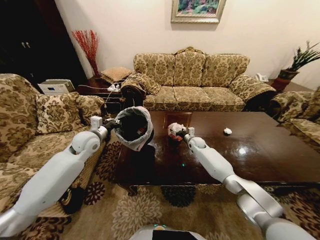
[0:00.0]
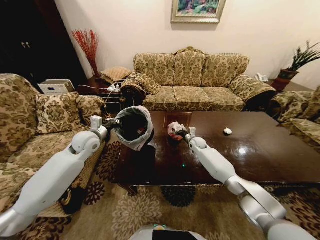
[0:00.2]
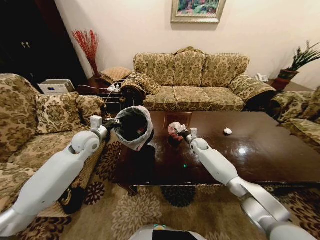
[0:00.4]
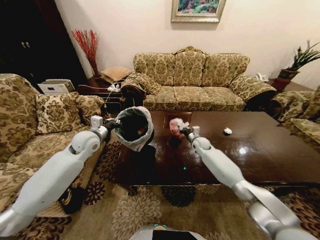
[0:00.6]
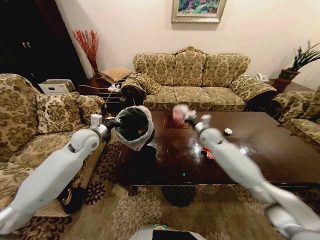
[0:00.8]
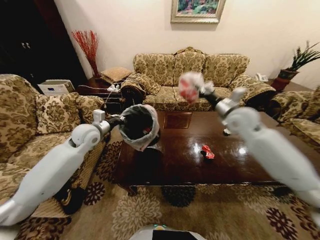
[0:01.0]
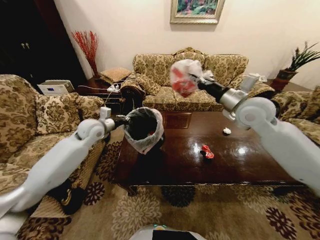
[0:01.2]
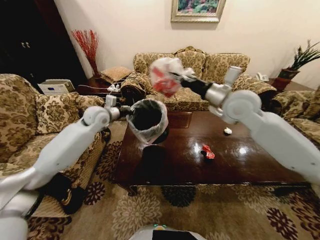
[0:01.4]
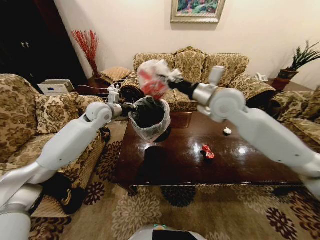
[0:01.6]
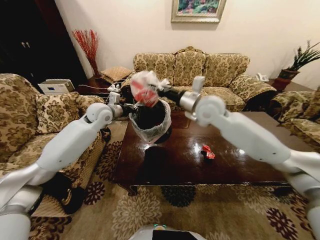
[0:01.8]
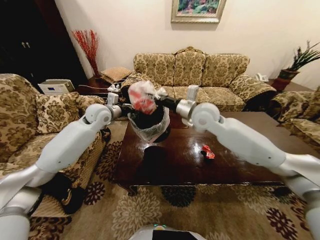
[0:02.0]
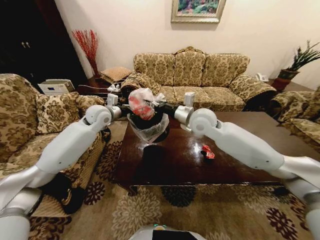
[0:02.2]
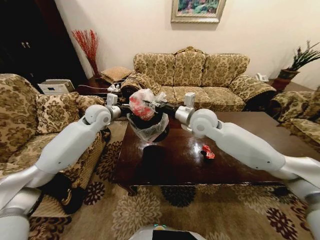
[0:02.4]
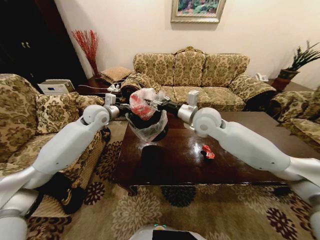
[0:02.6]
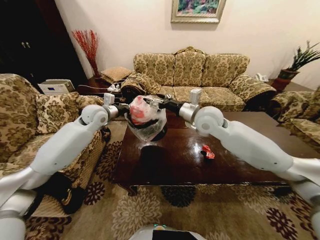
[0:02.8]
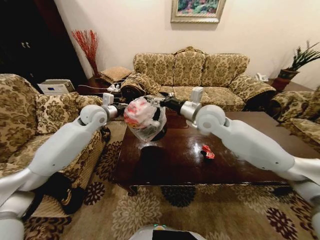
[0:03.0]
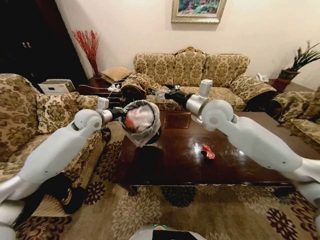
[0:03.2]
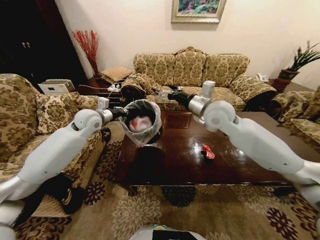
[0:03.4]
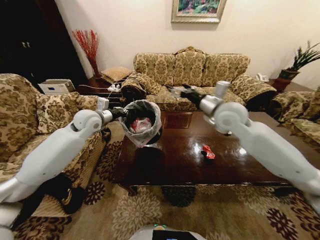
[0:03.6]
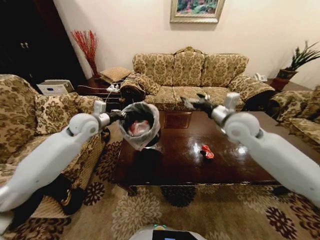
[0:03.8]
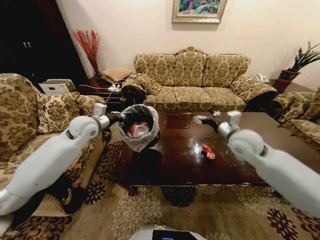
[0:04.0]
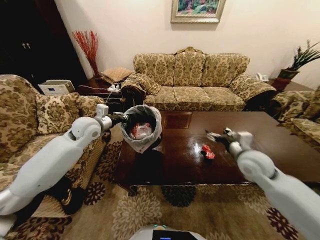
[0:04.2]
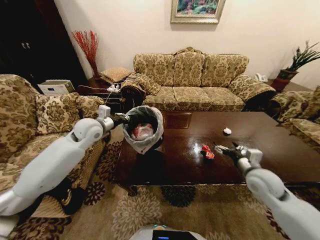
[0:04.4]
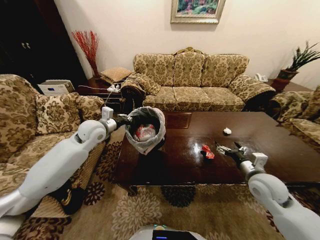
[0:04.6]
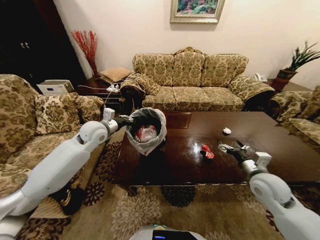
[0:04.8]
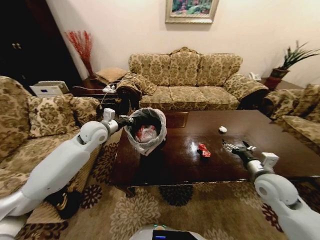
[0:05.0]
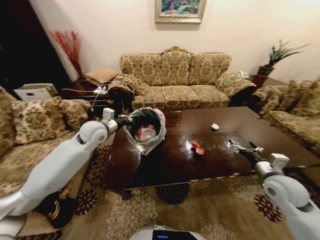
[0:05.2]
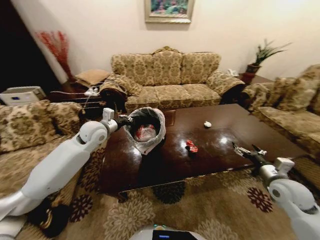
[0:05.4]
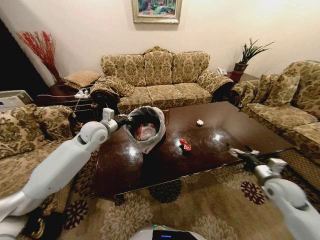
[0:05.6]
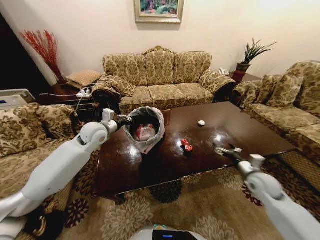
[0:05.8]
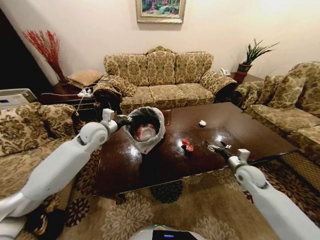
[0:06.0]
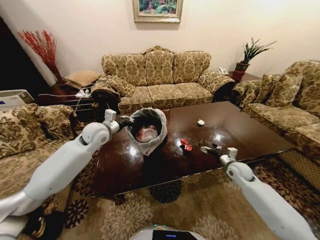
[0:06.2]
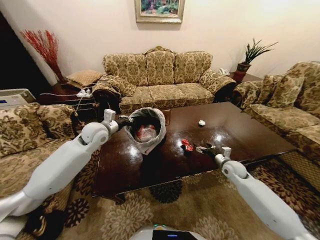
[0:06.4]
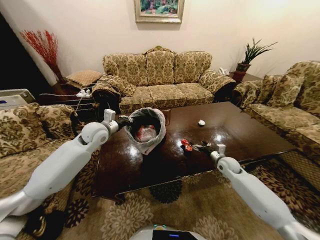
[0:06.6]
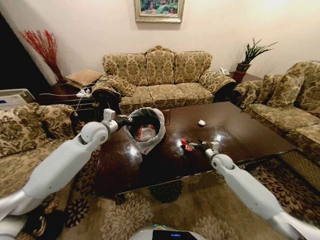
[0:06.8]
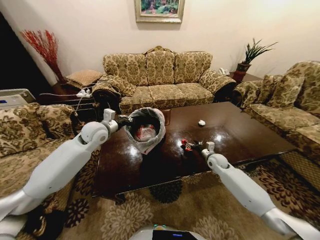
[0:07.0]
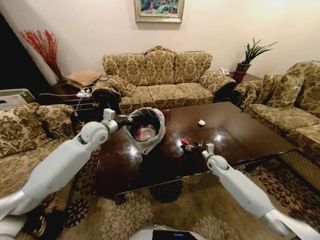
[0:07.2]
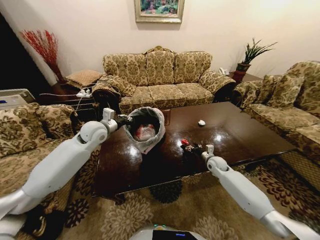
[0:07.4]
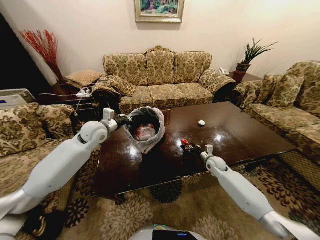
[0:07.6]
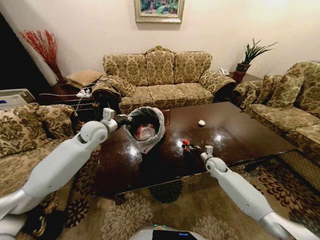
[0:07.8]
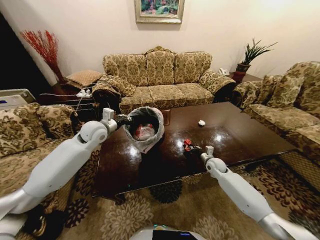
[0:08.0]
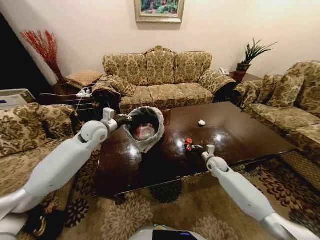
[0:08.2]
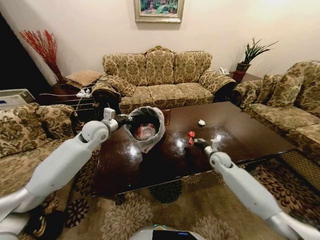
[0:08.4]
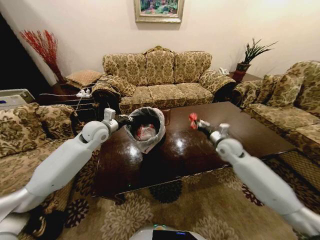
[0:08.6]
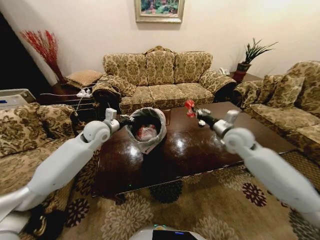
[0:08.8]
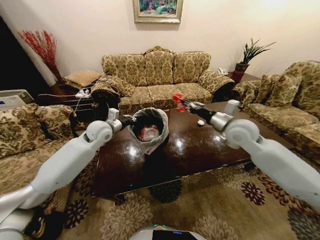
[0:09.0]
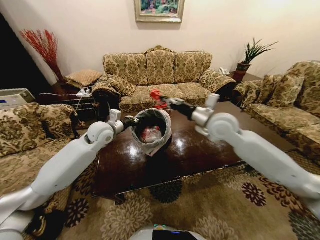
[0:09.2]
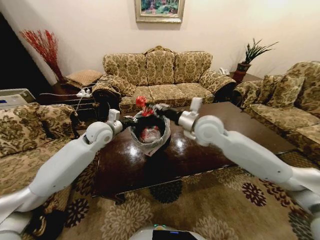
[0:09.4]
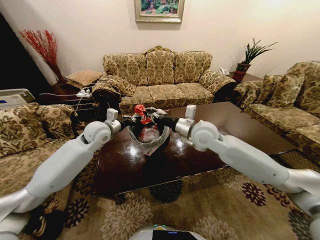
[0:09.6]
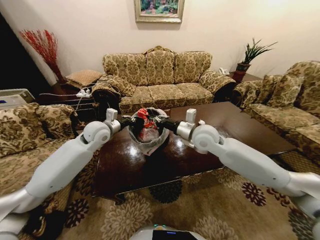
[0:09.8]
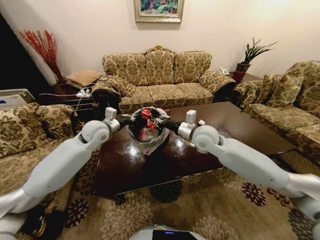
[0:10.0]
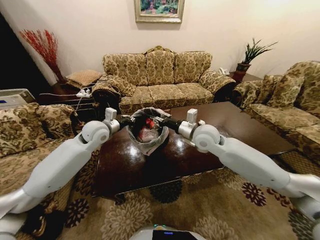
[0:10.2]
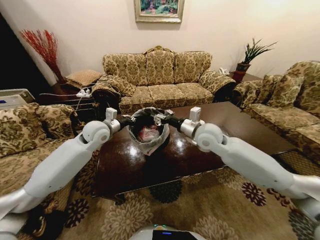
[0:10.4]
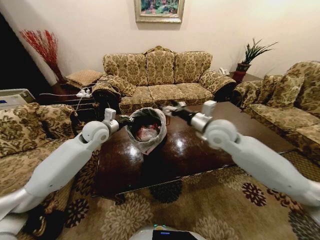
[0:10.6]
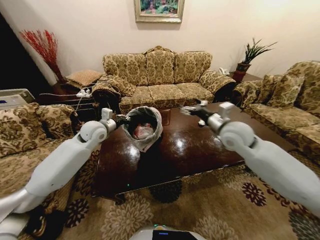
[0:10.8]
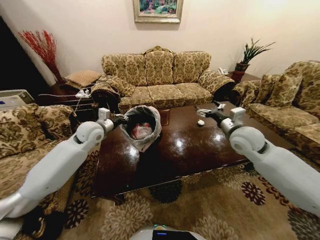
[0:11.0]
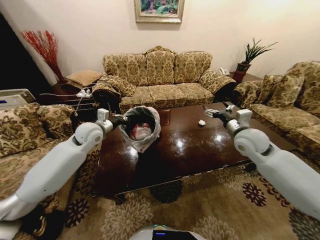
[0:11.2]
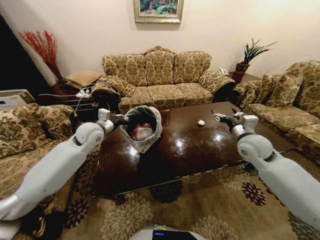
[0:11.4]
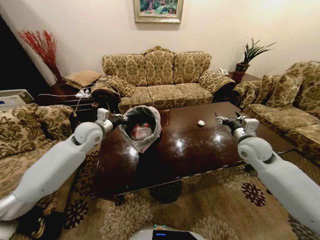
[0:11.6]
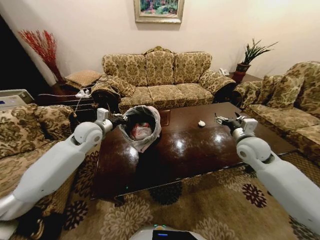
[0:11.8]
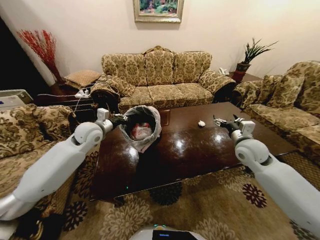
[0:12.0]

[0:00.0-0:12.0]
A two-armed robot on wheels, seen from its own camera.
Task of the whole recording: Move to the front of the table and place the trash on the table into the trash bin.
0:00.0 to 0:01.6: The left gripper travels upward and forward by about 15 cm, while the right gripper travels upward by approximately 35 cm, and closes its fingers.
0:01.6 to 0:03.0: The right gripper opens.
0:03.0 to 0:04.4: The right gripper shifts approximately 30 cm to the right, downward and backward. Meanwhile the left gripper moves backward, roughly 5 cm.
0:04.4 to 0:06.0: The right gripper travels downward and forward by roughly 10 cm.
0:06.0 to 0:07.6: The right gripper heads forward, to the left and downward, covering about 15 cm, and closes.
0:07.6 to 0:09.0: The right gripper moves upward, some 30 cm, and closes.
0:09.0 to 0:10.4: The right gripper is displaced to the left by about 10 cm, and opens its fingers.
0:10.4 to 0:12.0: The right gripper heads to the right, covering about 15 cm, and opens its fingers.

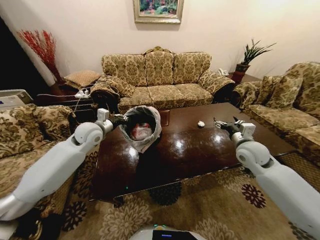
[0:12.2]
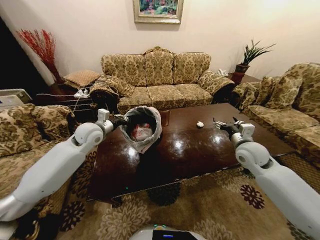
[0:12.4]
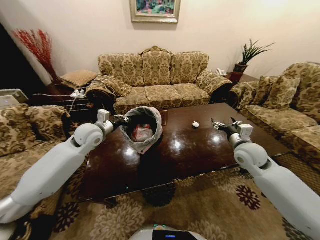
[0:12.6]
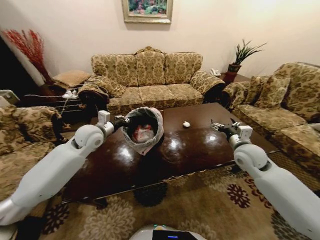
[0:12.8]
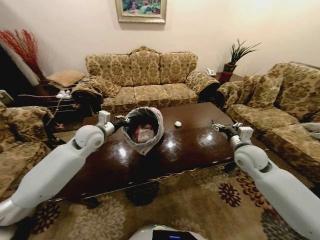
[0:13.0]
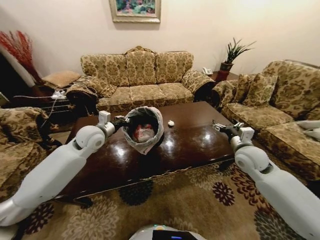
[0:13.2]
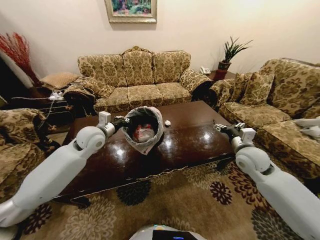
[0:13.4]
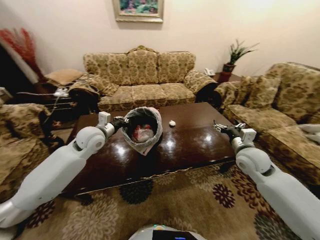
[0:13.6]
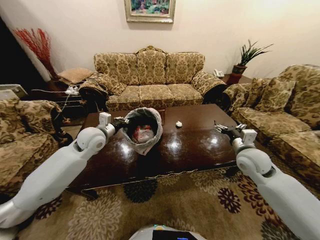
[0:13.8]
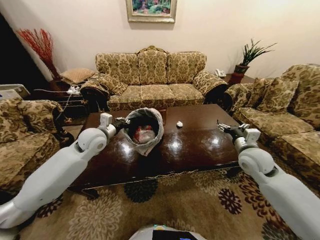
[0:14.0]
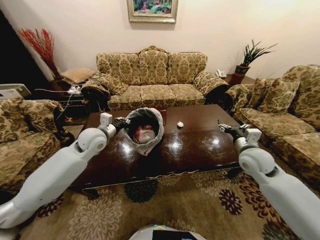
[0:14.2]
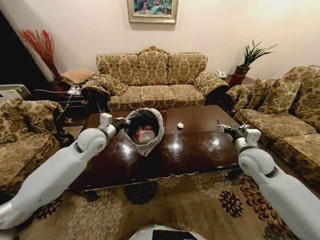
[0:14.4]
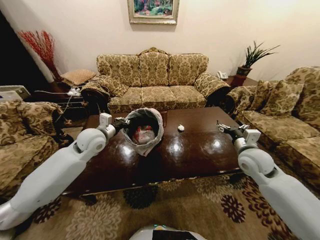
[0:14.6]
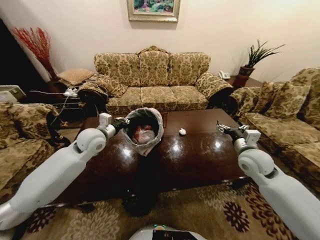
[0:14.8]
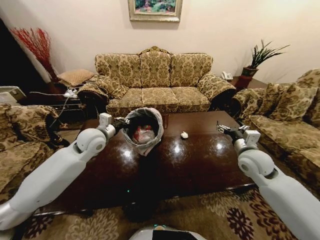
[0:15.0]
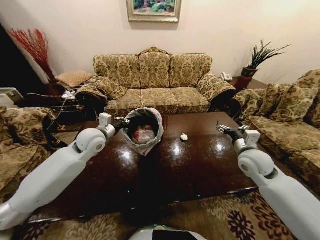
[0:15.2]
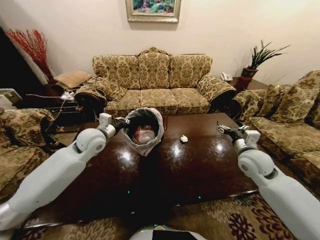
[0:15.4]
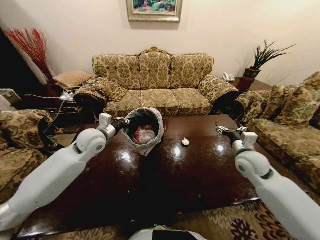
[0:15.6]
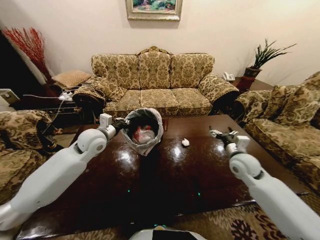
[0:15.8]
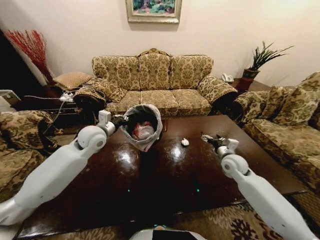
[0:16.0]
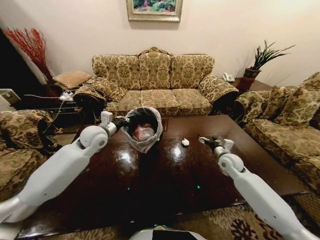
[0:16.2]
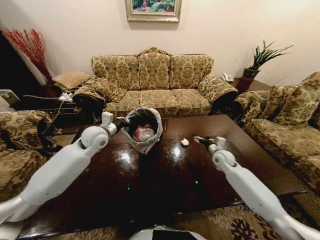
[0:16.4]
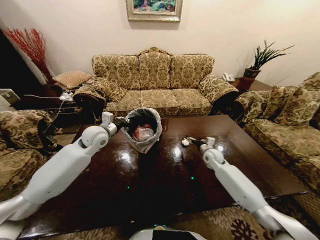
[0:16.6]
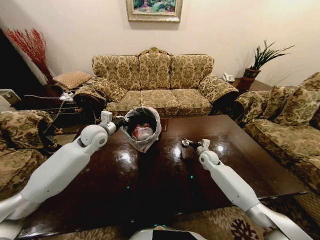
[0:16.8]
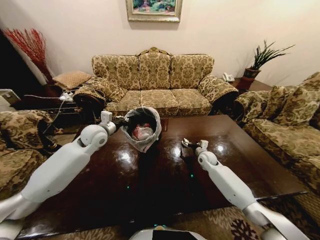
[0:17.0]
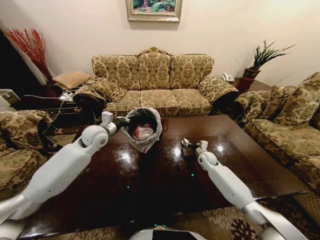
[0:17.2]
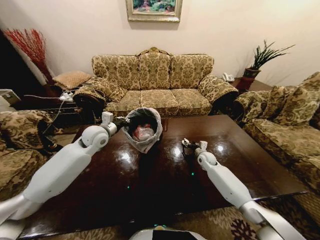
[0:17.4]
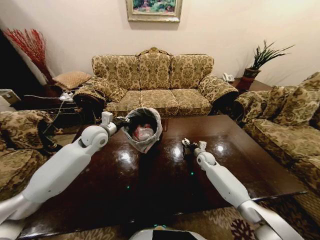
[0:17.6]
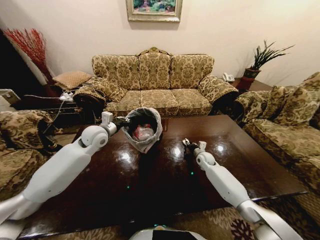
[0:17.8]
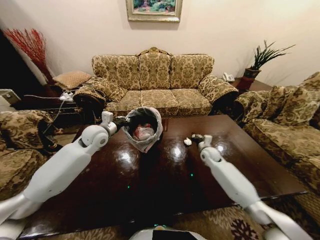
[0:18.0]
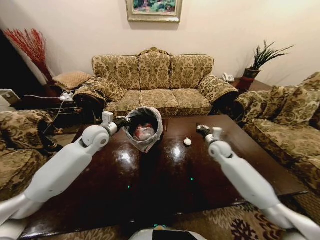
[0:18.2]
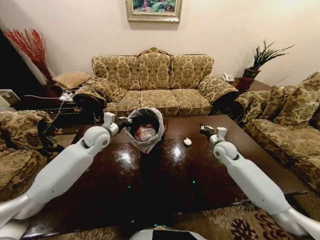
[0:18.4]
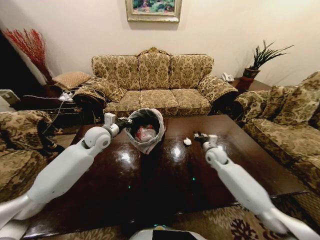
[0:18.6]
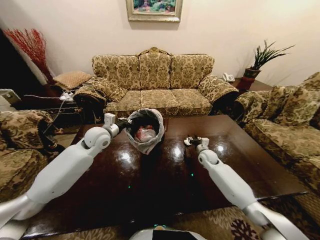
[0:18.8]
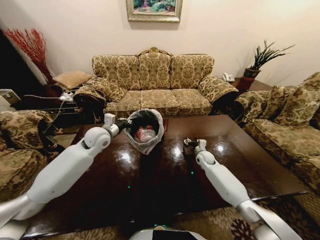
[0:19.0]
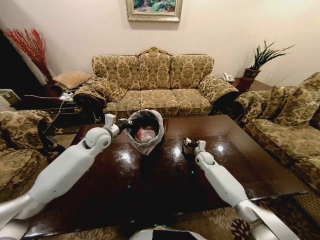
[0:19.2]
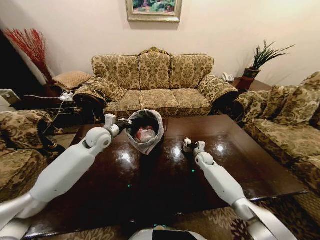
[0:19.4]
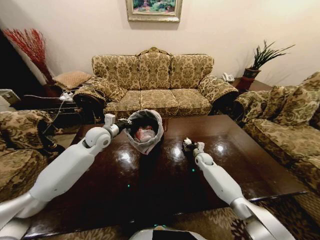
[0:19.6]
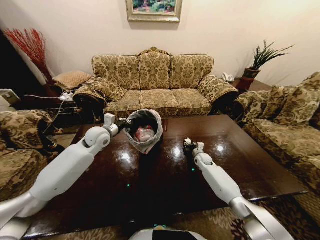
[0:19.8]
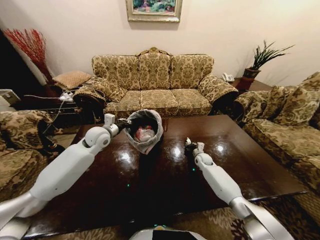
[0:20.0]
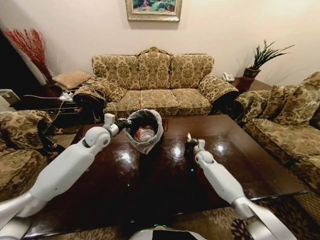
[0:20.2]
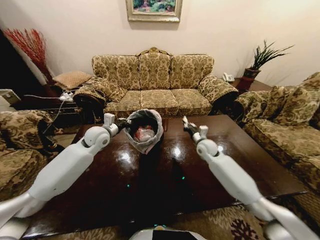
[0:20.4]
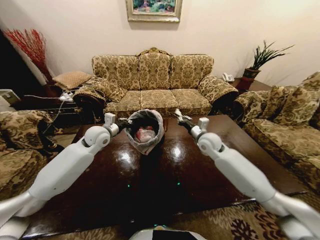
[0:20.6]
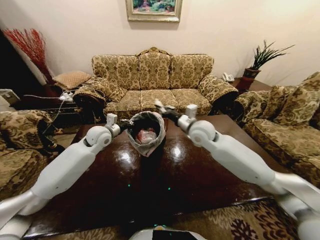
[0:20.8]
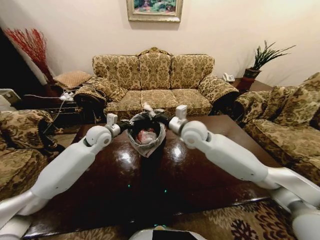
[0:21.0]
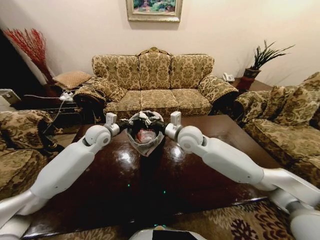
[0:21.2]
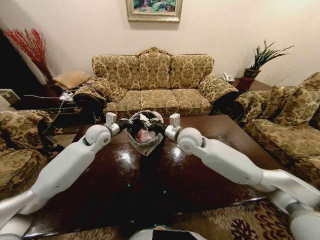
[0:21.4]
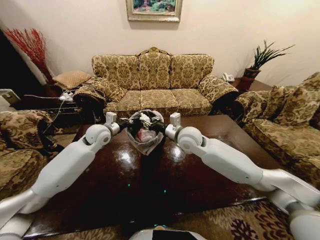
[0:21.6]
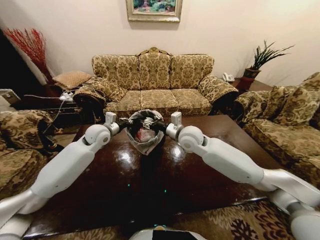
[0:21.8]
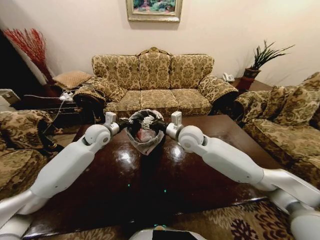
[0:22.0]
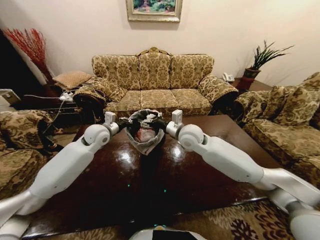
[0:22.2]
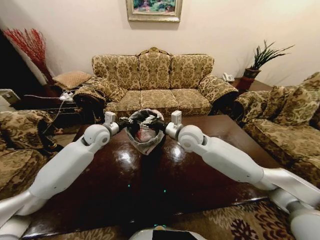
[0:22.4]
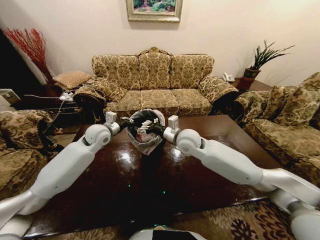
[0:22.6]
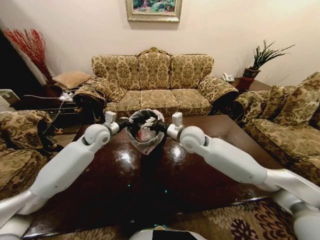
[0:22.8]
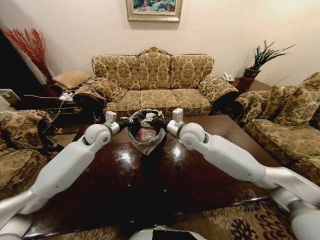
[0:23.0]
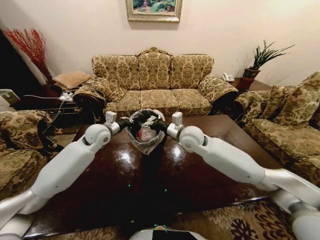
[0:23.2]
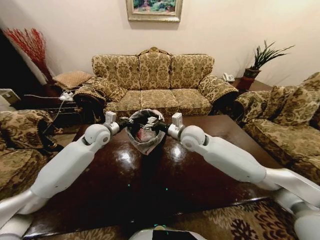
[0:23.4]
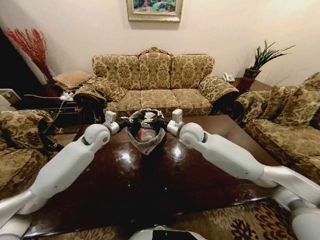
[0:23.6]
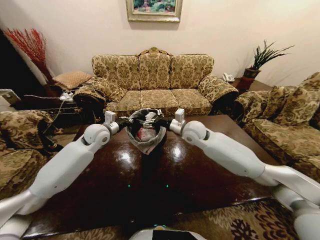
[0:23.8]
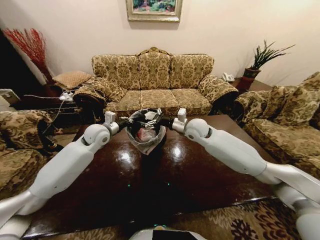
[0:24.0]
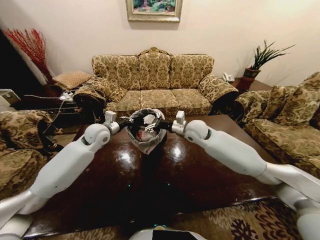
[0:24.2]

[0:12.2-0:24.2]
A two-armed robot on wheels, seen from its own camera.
Task of the whole recording: Move to the front of the table and place the trash on the table into the trash bin.
0:15.2 to 0:16.6: The right gripper is displaced downward and forward by approximately 20 cm.
0:16.6 to 0:18.2: The right gripper goes some 10 cm upward, and closes its fingers.
0:18.2 to 0:19.8: The right gripper moves downward, approximately 15 cm, and opens up.
0:19.8 to 0:21.2: The right gripper goes approximately 35 cm upward and to the left, and closes its fingers.
0:21.2 to 0:22.6: The right gripper opens up.
0:22.6 to 0:24.2: The right gripper heads forward, covering some 5 cm.
